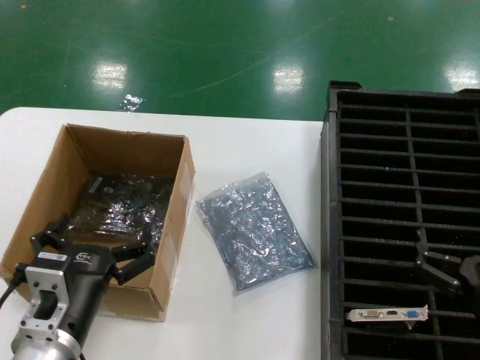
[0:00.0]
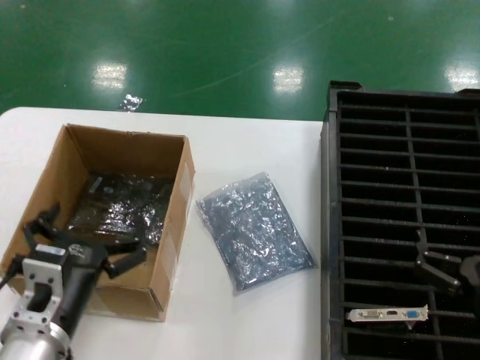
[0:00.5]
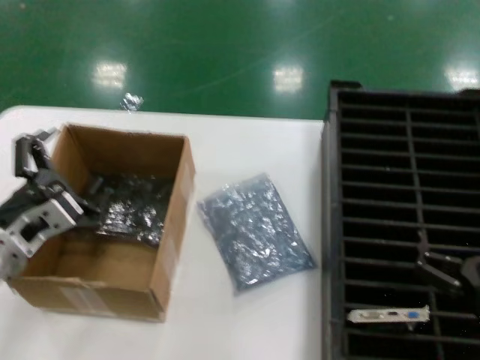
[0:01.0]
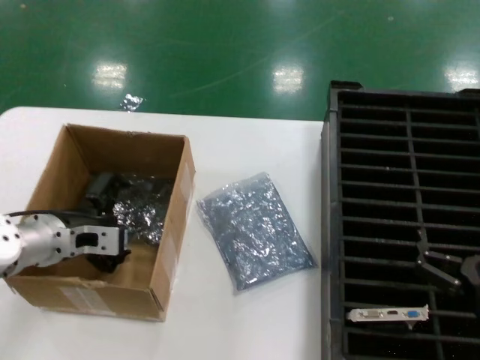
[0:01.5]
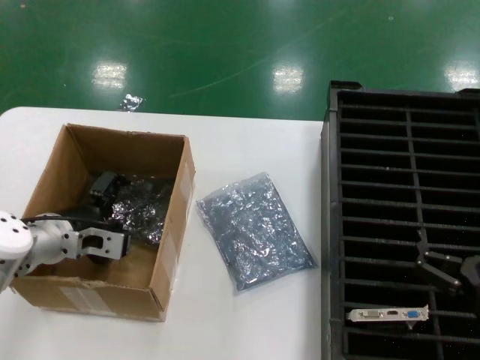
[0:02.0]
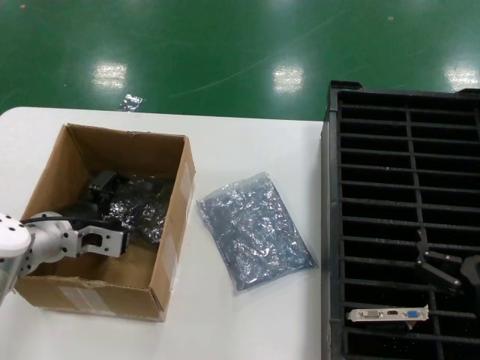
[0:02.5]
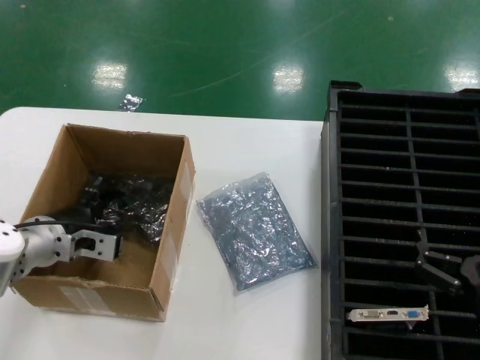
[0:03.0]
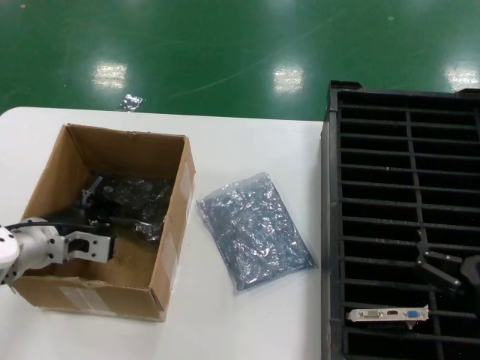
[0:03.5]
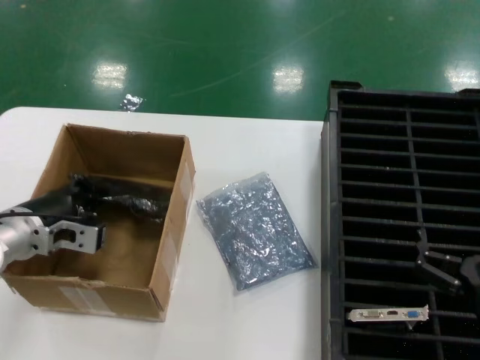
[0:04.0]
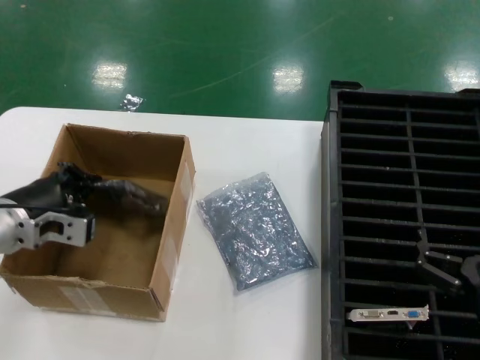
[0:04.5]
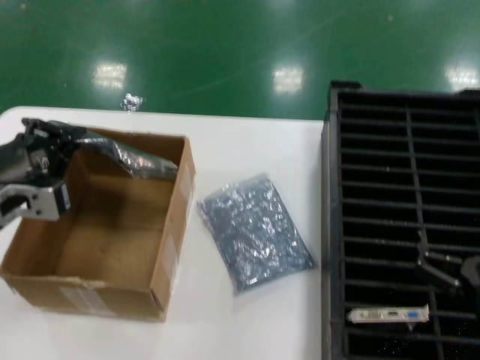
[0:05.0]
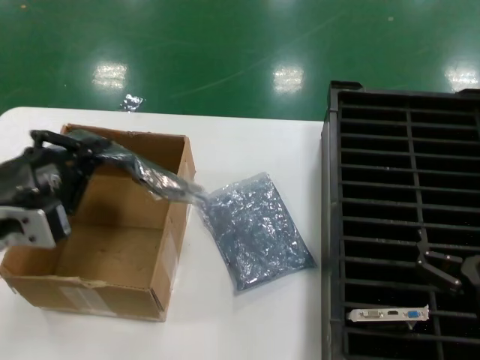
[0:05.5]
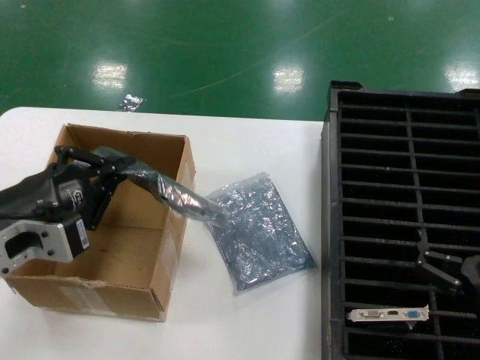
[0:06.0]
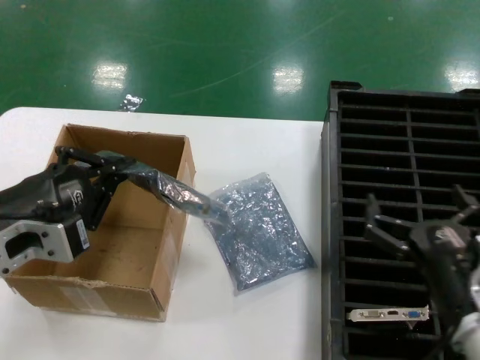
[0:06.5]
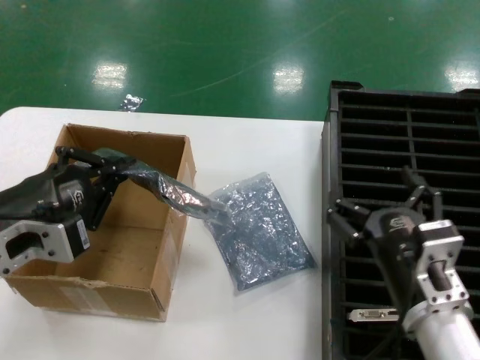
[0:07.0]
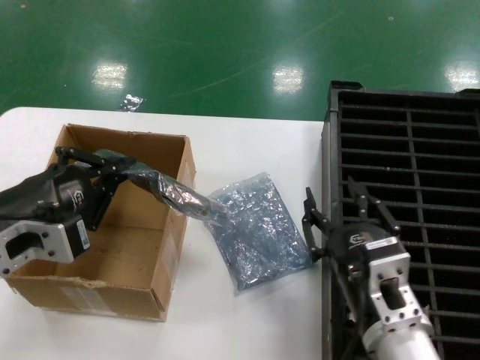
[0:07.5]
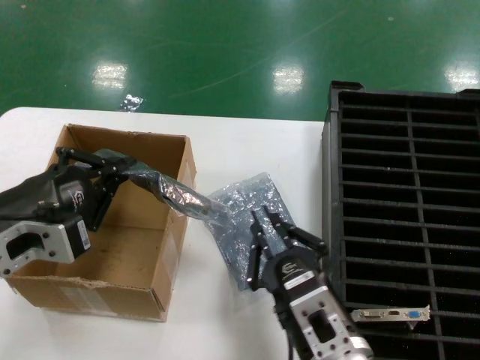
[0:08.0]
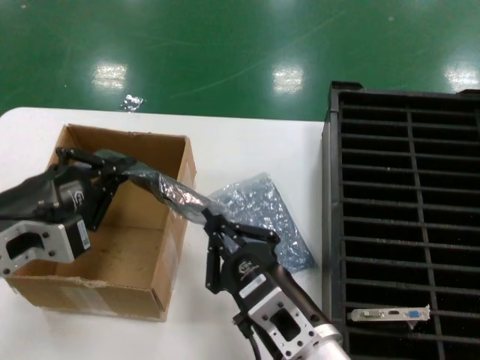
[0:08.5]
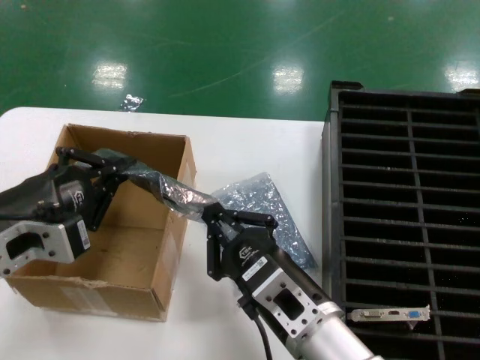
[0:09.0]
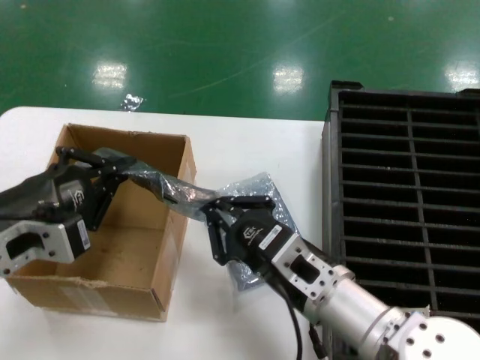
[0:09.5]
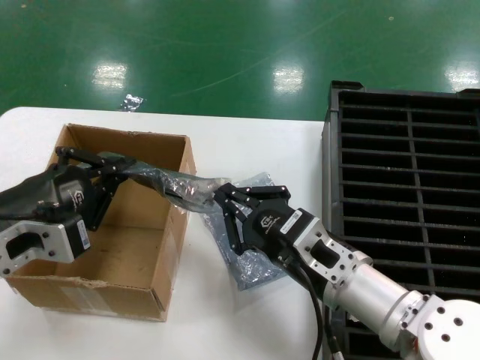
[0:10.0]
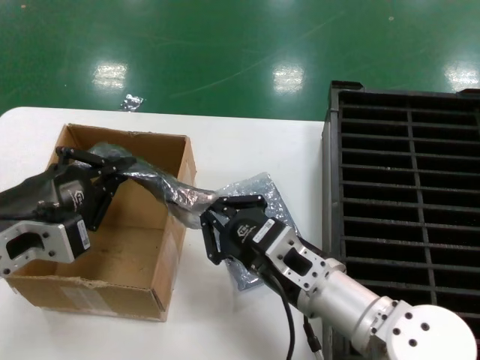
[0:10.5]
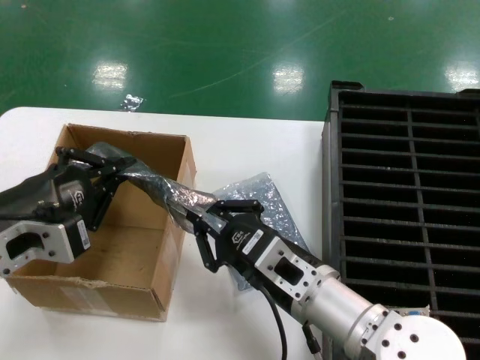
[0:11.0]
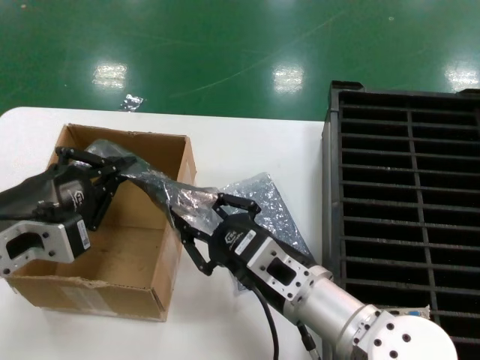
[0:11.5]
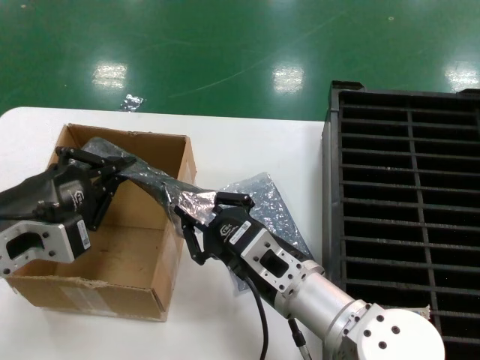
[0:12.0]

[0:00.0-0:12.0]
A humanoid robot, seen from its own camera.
Task of the whole recording: take out graphics card from box remove packaging put into black container.
Step, 0:00.0 to 0:03.5: Grasp the bag.
Step, 0:04.0 to 0:06.0: Lift the bag.
0:00.0 to 0:02.0: The left hand is displaced forward and to the left by about 20 cm.
0:02.0 to 0:04.0: The hands stay close to where they were, moving slightly.
0:04.0 to 0:06.0: The left hand shifts roughly 20 cm backward and upward.
0:06.0 to 0:08.0: The right hand goes some 20 cm to the left.
0:08.0 to 0:10.0: The right hand shifts some 10 cm forward and upward.
0:10.0 to 0:12.0: The right hand moves to the left, approximately 5 cm.

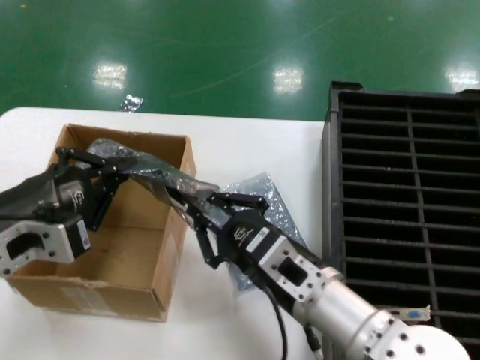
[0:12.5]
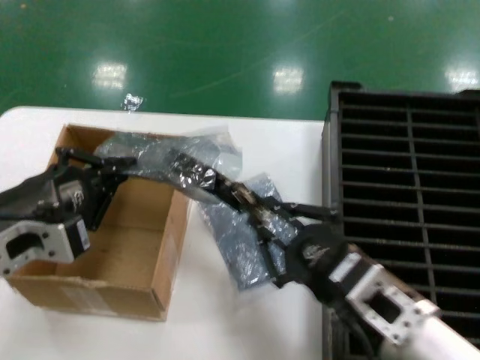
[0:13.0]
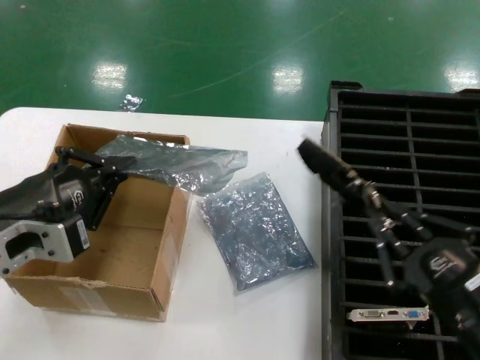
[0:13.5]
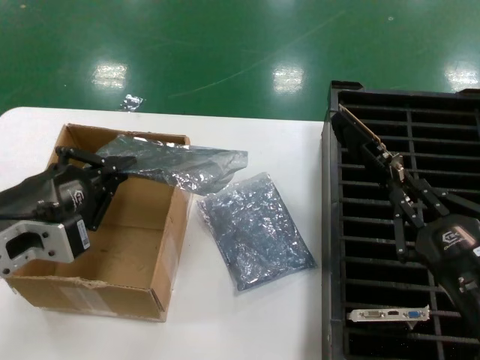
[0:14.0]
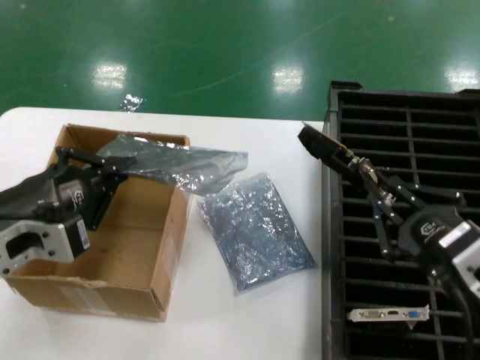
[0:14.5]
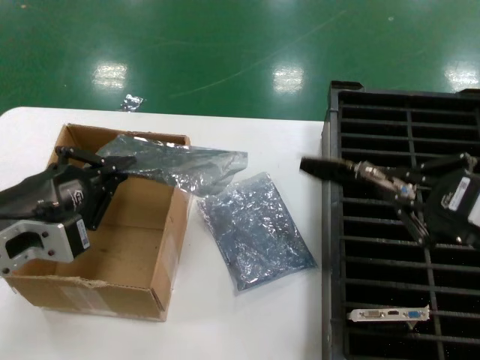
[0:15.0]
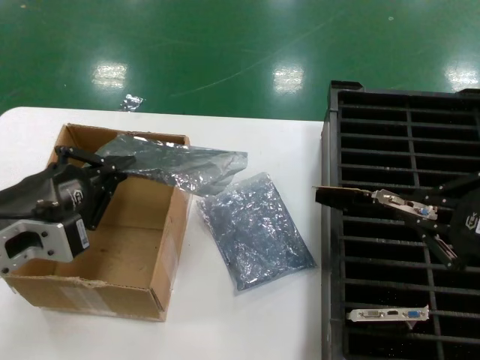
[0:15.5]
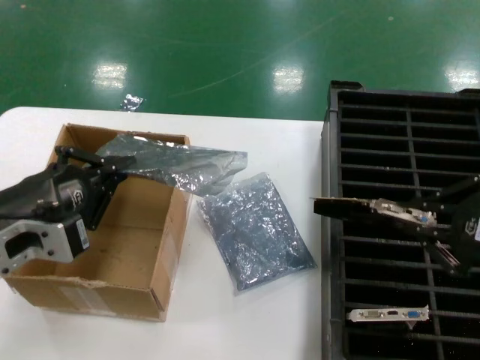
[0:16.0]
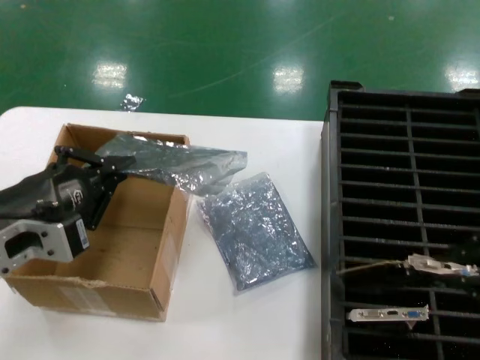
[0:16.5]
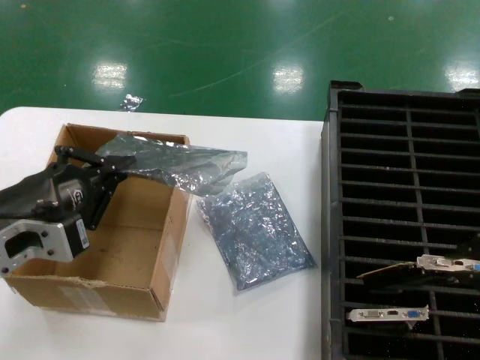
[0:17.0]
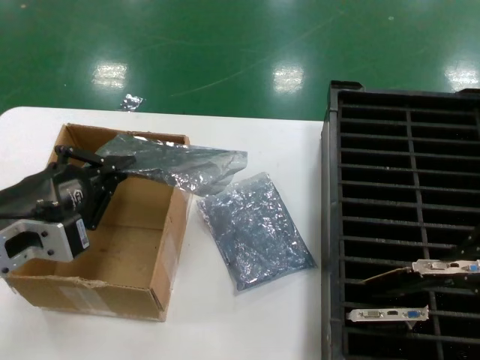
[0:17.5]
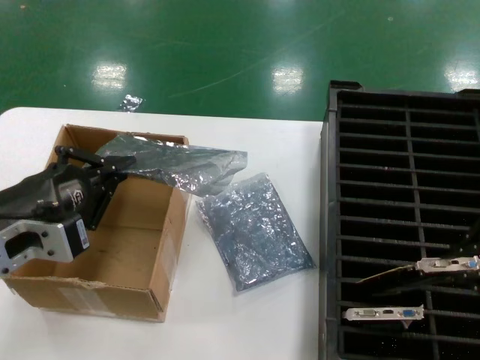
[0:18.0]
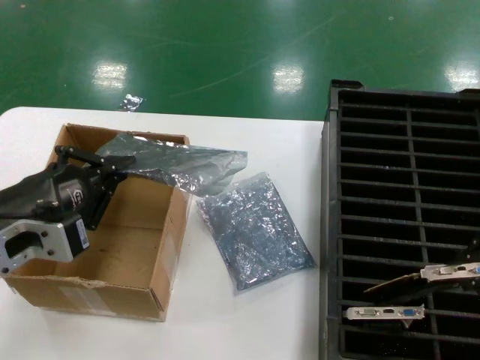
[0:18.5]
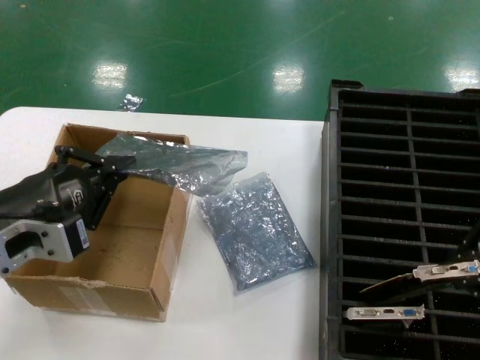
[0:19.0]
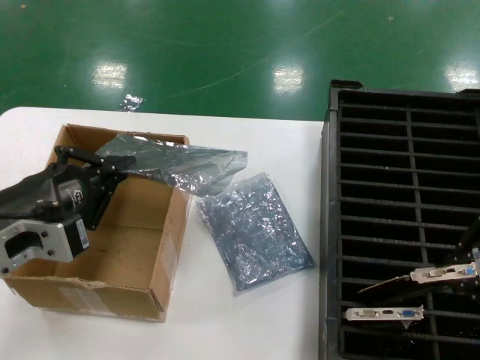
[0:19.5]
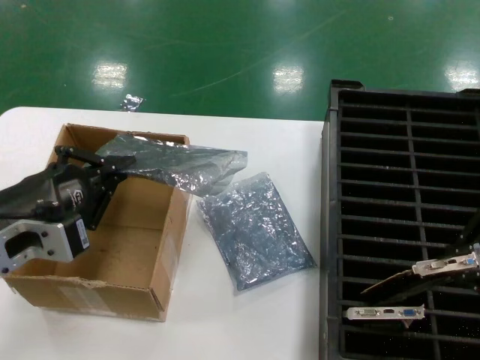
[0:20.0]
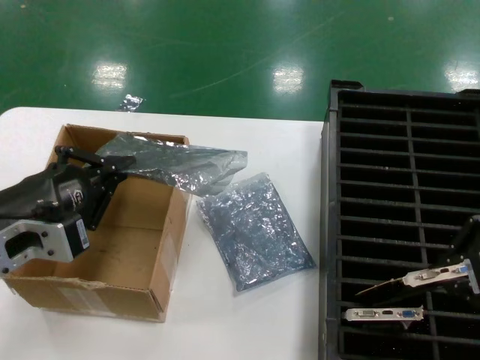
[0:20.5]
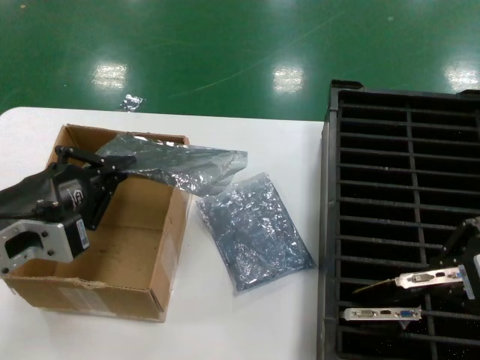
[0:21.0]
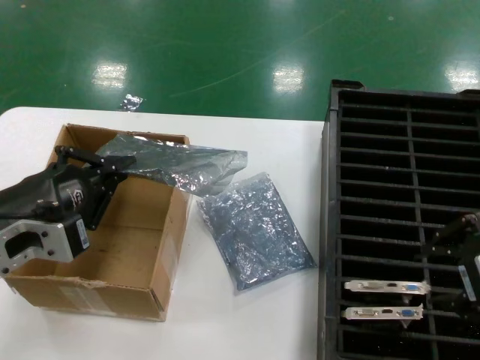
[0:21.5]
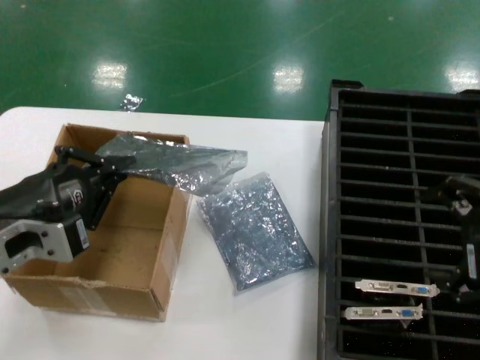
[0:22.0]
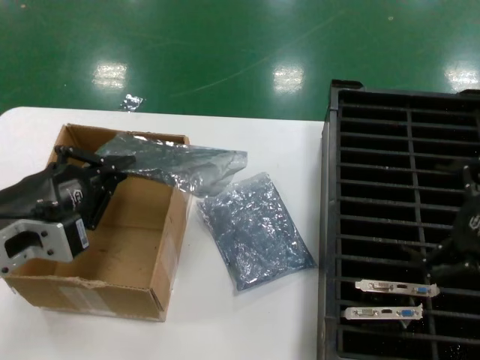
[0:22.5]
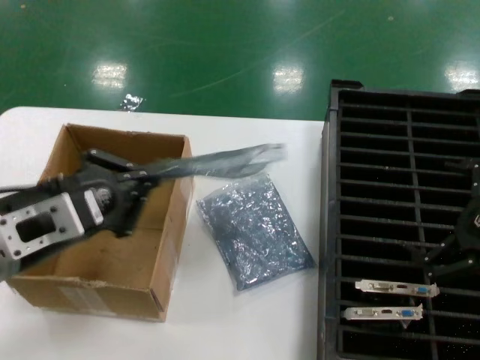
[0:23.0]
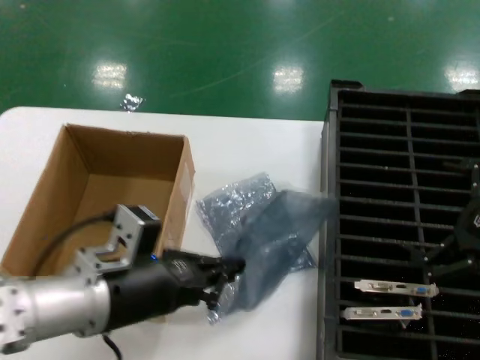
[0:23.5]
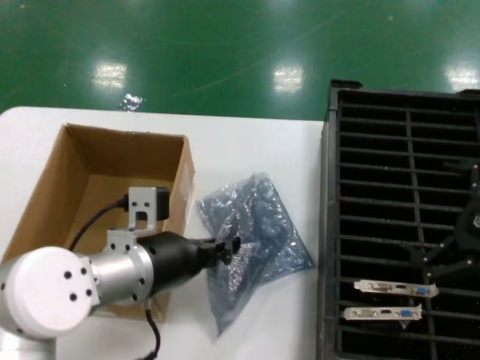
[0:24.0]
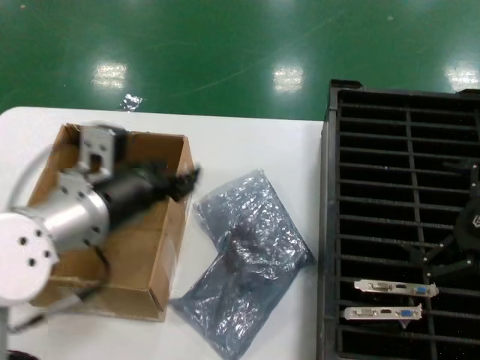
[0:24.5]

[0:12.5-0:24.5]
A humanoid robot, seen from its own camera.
Task of the whole recording: take out graphics card from box remove packaging put into black container.
Step, 0:13.5 to 0:21.5: Place the hard disk in the hard disk enclosure.
Step, 0:22.0 to 0:24.0: Place the down the bag.
0:12.5 to 0:14.5: The right hand shifts approximately 20 cm to the right and backward.
0:14.5 to 0:16.5: The right hand heads upward and to the right, covering some 20 cm.
0:16.5 to 0:18.5: The hands make only small movements.
0:18.5 to 0:20.5: The hands stay close to where they were, moving slightly.
0:20.5 to 0:22.5: The right hand travels downward and to the right by some 10 cm.
0:22.5 to 0:24.5: The left hand moves to the right and forward, about 10 cm.

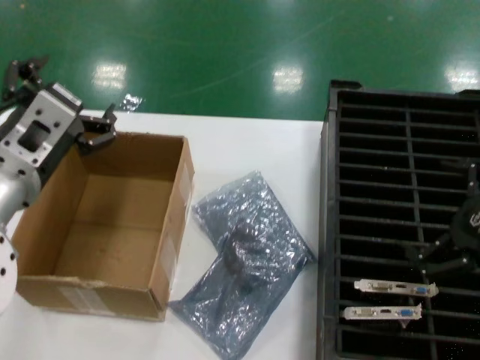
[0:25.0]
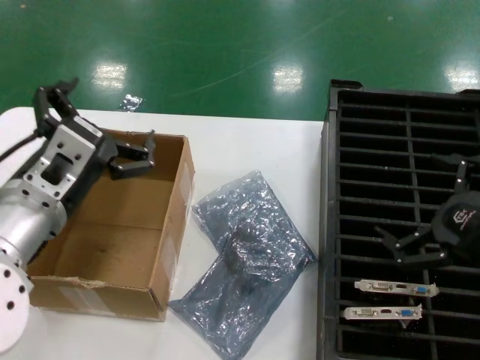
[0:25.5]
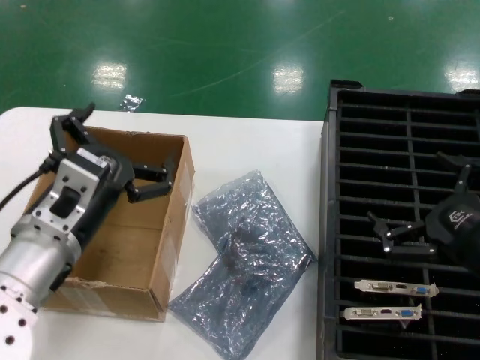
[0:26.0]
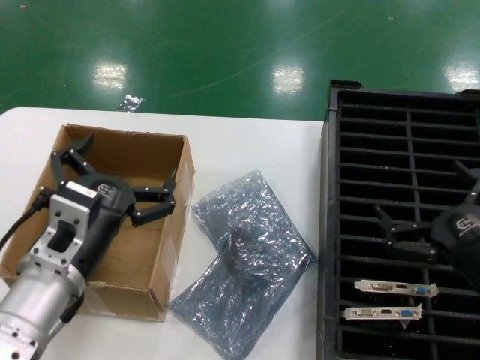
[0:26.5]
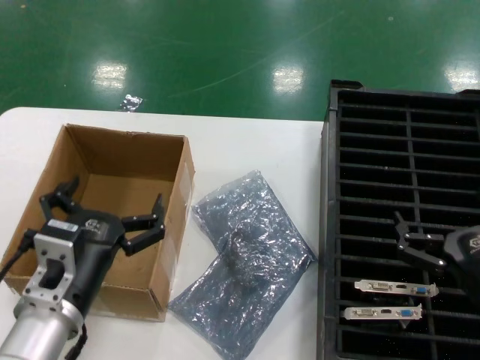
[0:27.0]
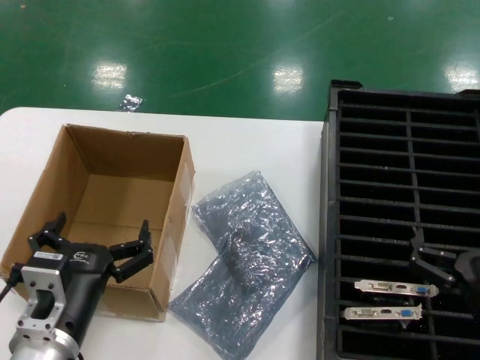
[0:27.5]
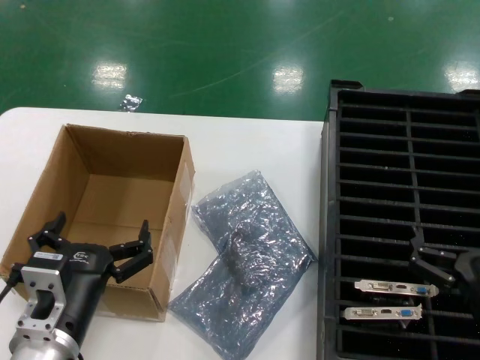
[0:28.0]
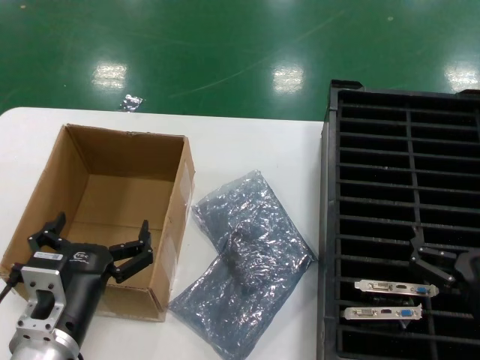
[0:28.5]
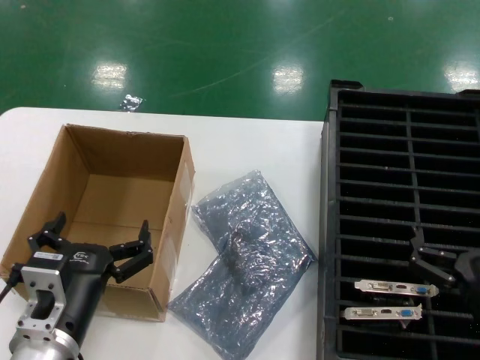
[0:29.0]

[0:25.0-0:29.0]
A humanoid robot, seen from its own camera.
Task of the whole recording: take out graphics card from box remove packaging put into black container.
0:25.0 to 0:27.0: Both hands move downward, about 15 cm.
0:27.0 to 0:29.0: The hands stay close to where they were, moving slightly.
